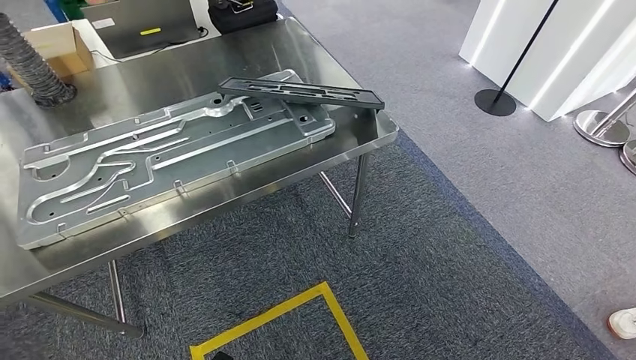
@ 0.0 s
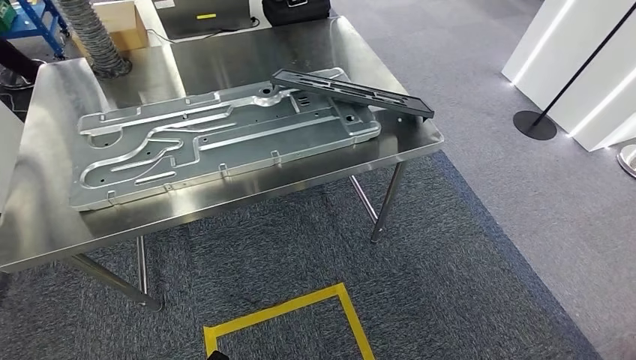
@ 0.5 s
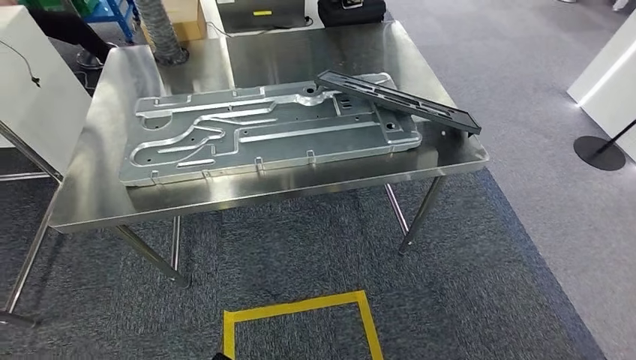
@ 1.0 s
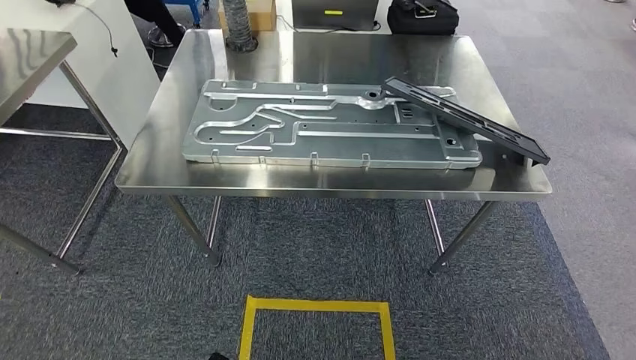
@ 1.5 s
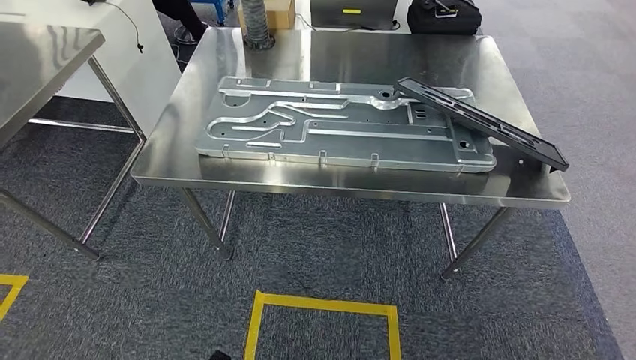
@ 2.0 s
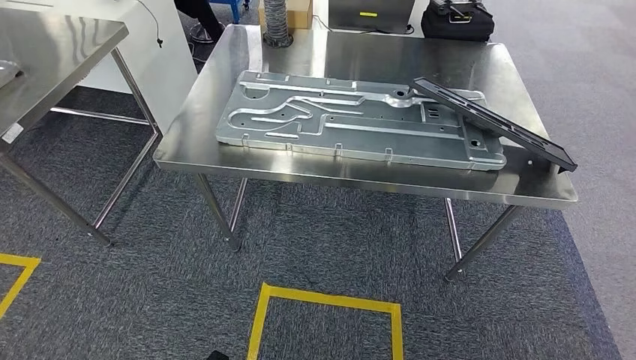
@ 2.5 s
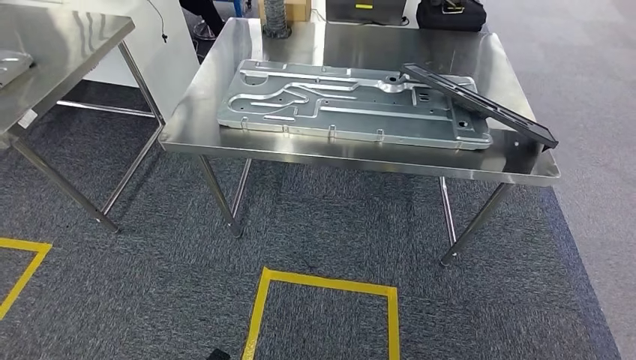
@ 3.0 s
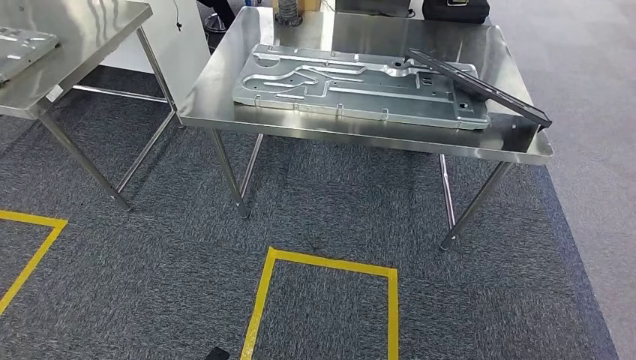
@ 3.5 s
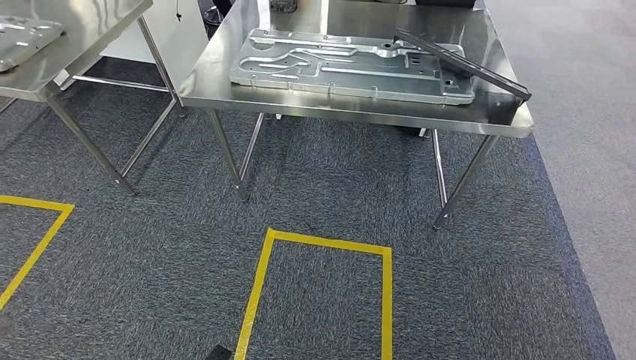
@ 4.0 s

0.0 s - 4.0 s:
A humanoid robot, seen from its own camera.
Step, 0.0 s - 4.0 s: Move to the initial position of the shelf.
